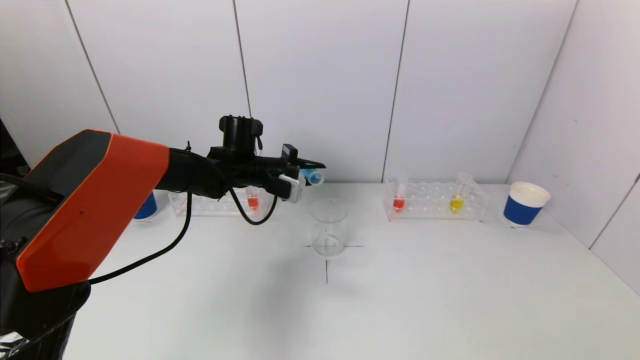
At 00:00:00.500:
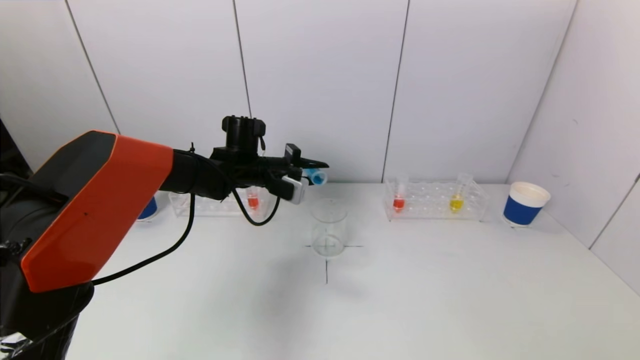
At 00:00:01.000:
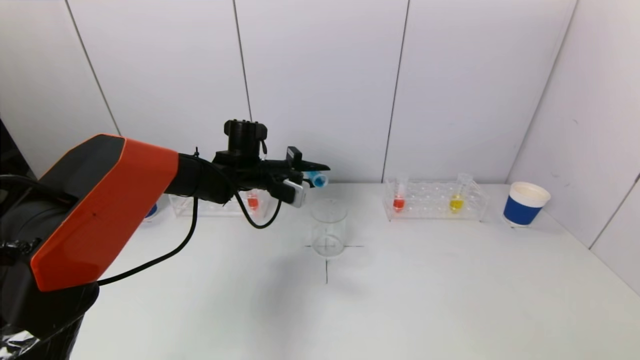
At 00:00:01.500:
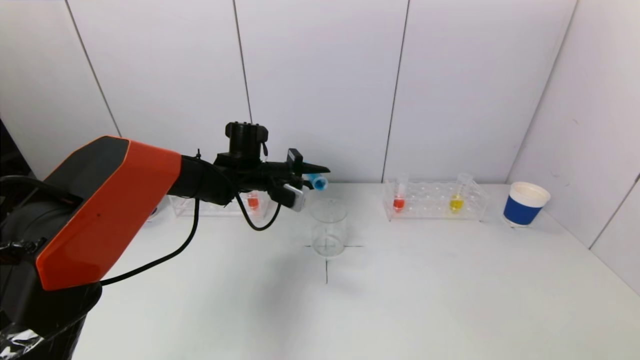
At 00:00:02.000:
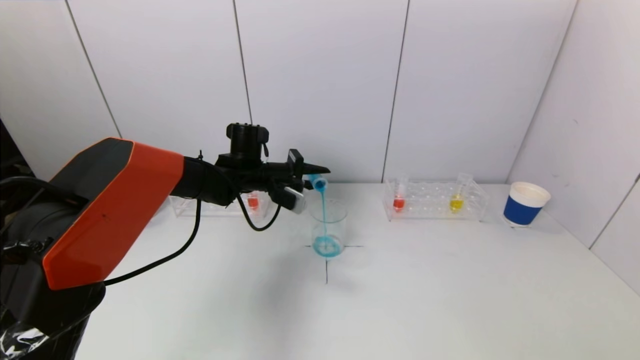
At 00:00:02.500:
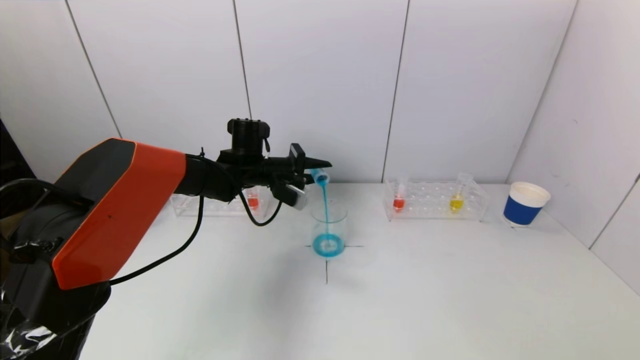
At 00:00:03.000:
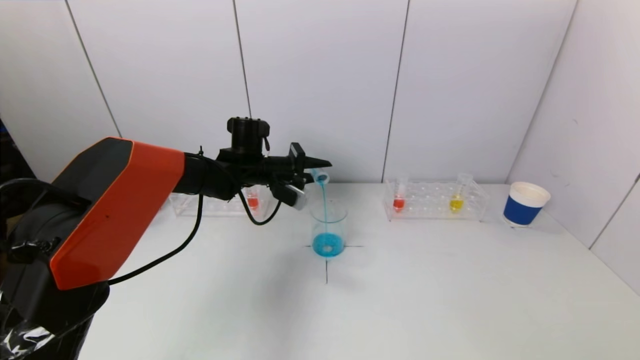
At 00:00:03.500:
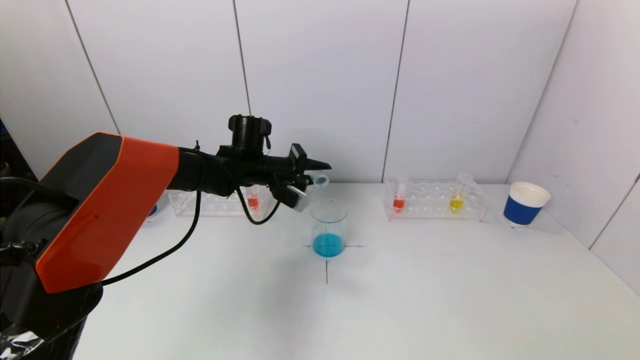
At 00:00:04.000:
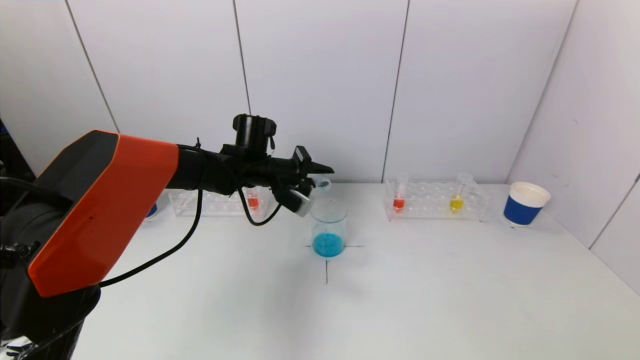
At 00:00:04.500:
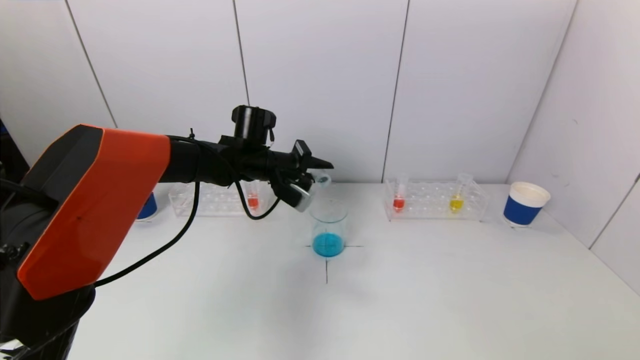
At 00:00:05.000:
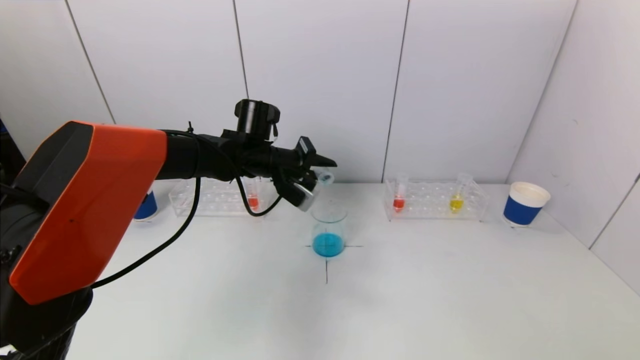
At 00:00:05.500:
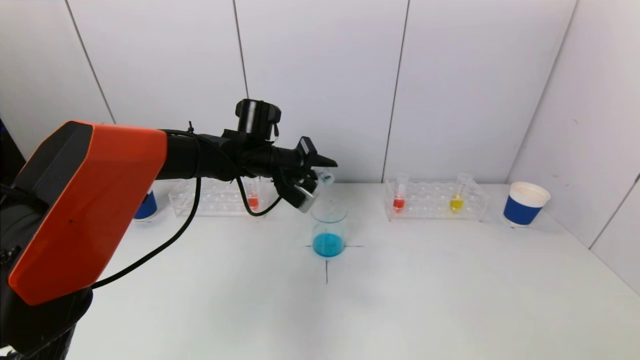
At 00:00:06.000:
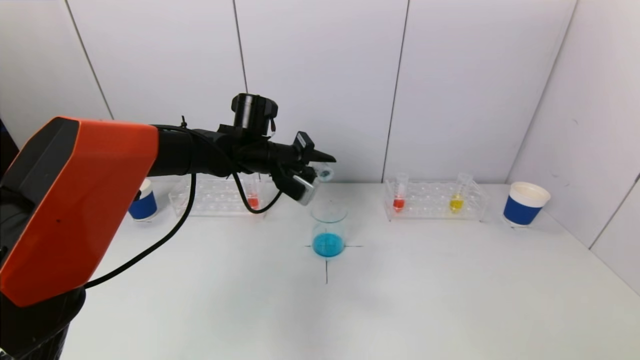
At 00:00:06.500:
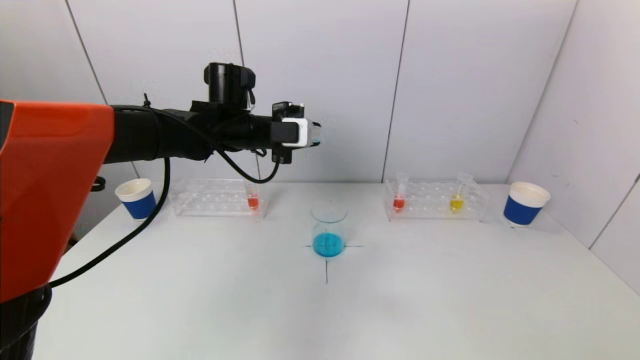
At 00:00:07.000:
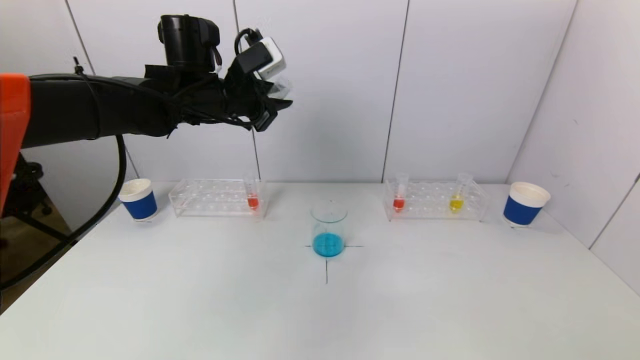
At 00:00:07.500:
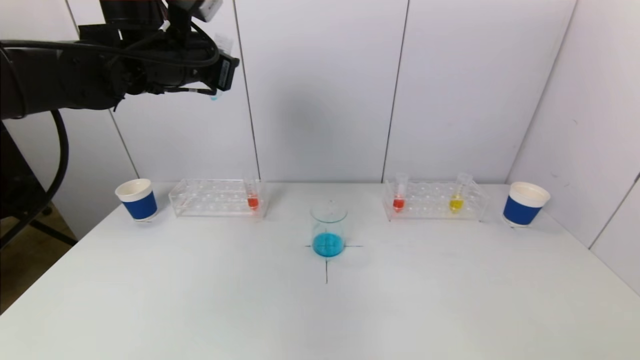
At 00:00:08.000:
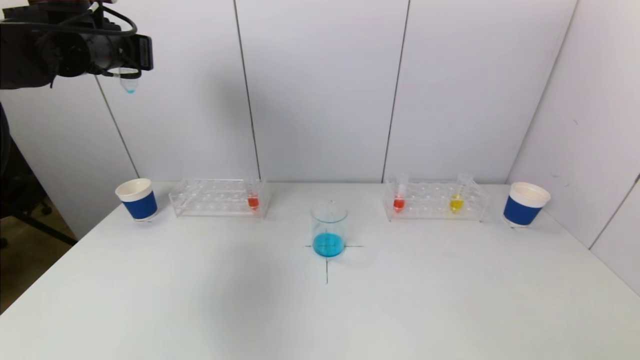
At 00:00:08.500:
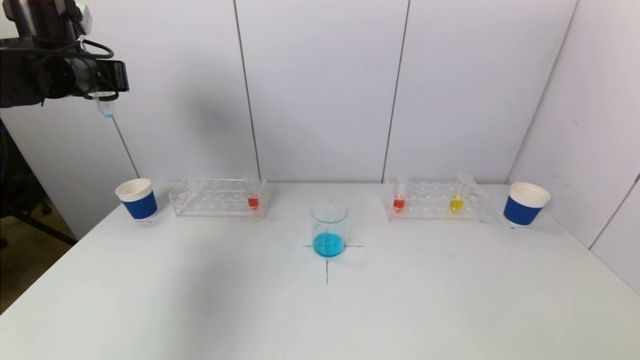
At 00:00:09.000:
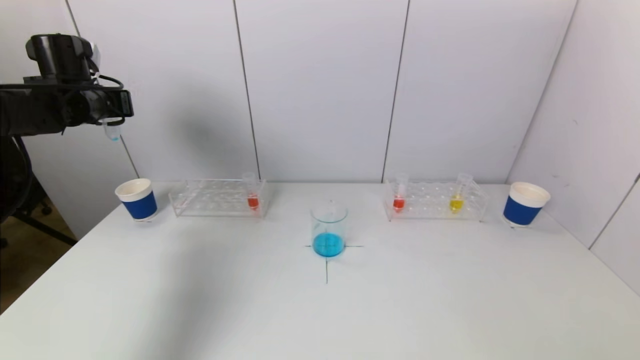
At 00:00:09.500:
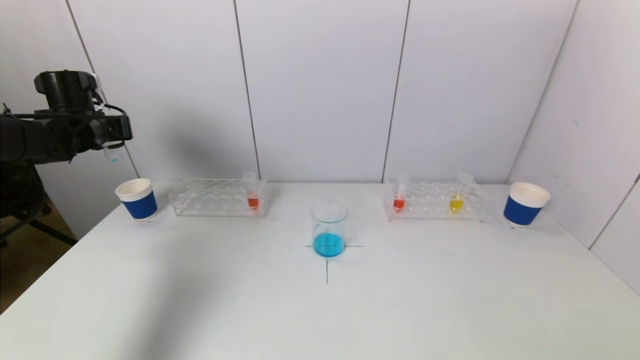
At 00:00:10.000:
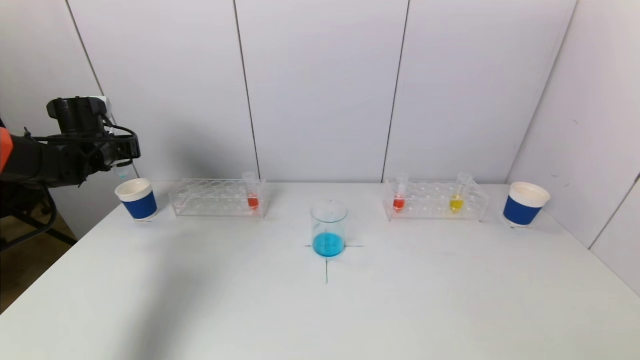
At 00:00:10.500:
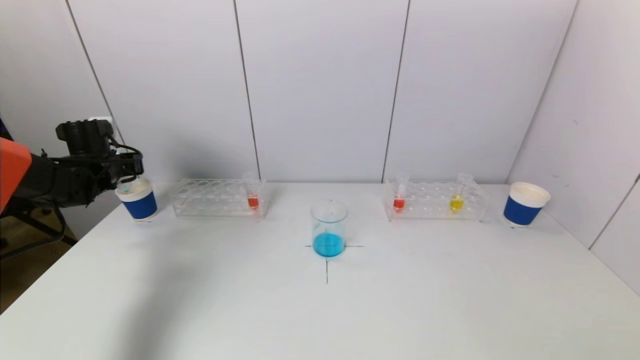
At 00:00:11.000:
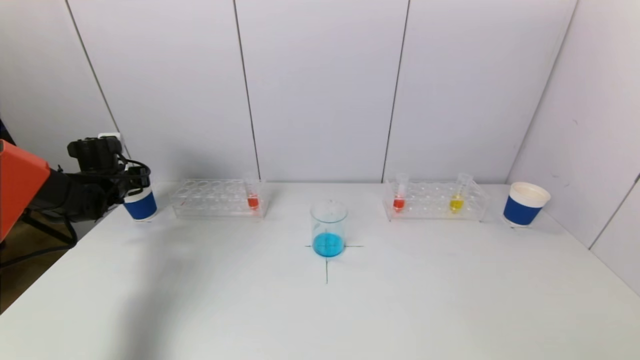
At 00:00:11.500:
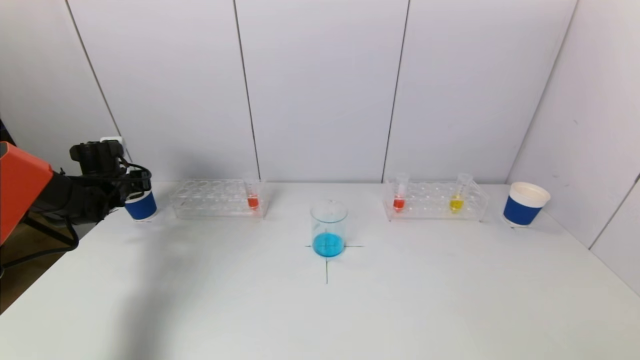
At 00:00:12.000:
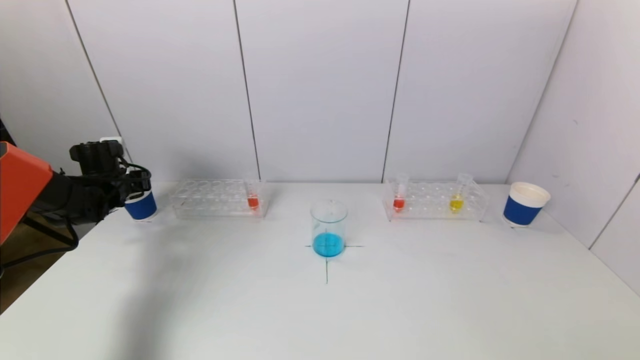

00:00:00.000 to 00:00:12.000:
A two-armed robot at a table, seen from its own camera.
Task of the whole recording: pick up a test tube with pigment on left test tube rack and a test tube with pigment on right test tube rack by grippers and pour them into the beaker.
Step, 00:00:00.000 to 00:00:04.500: Pour the blue reagent into the graduated cylinder with the left gripper.
00:00:00.000 to 00:00:04.000: There are only small adjustments of the grippers.
00:00:04.000 to 00:00:06.000: The grippers move only a little.
00:00:06.000 to 00:00:08.000: The left gripper goes some 25 cm to the left and upward.
00:00:08.000 to 00:00:10.000: The left gripper moves downward and to the left, some 20 cm.
00:00:10.000 to 00:00:12.000: The left gripper goes some 10 cm downward.

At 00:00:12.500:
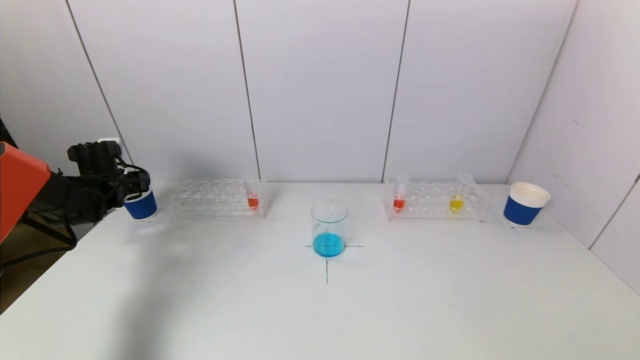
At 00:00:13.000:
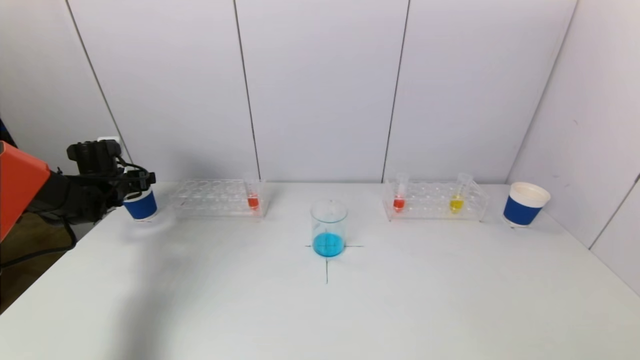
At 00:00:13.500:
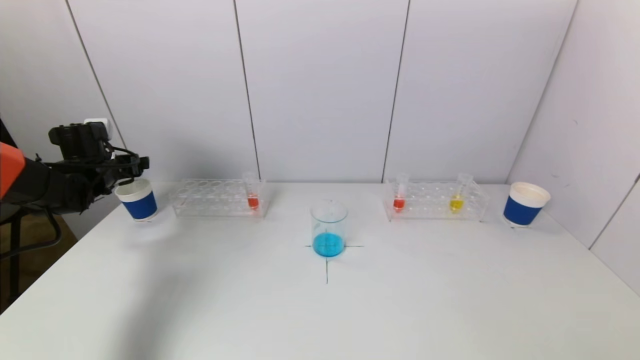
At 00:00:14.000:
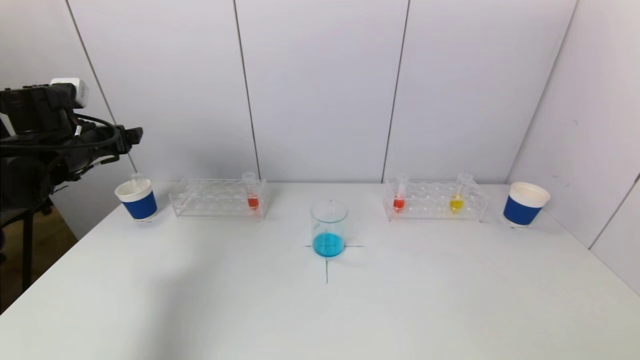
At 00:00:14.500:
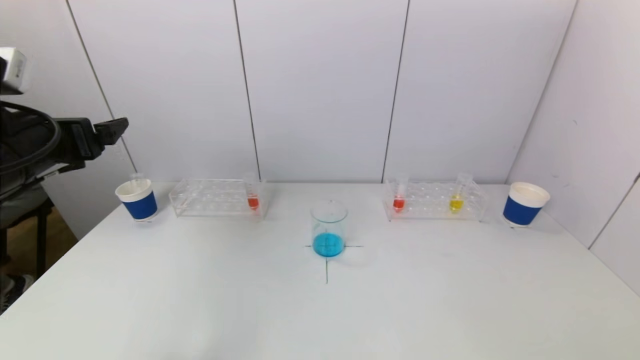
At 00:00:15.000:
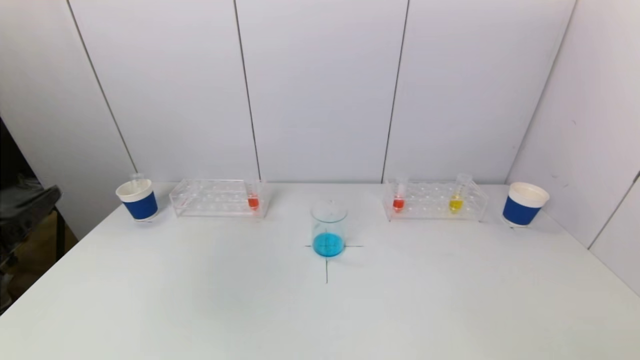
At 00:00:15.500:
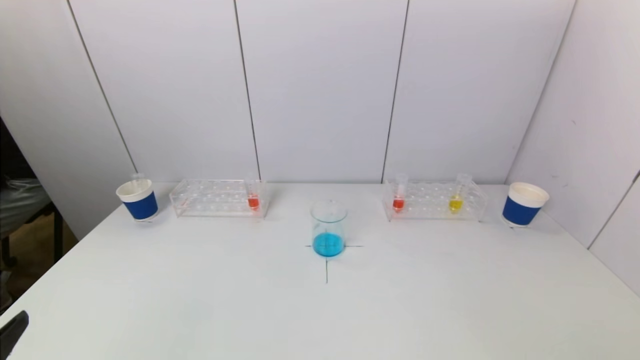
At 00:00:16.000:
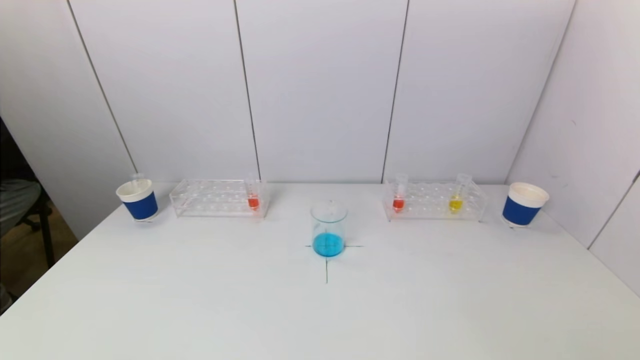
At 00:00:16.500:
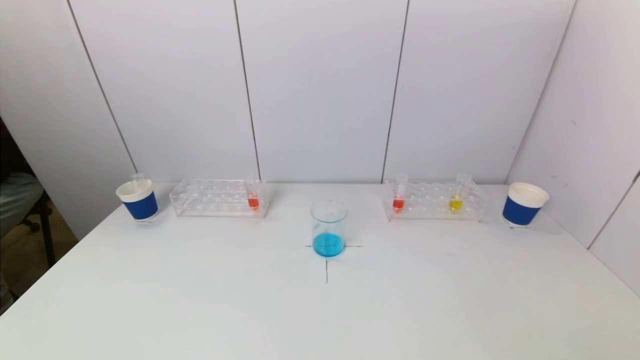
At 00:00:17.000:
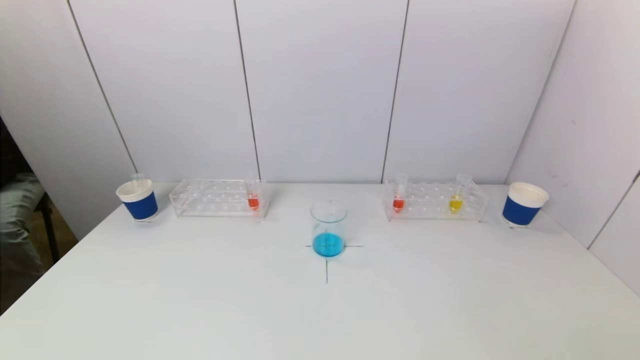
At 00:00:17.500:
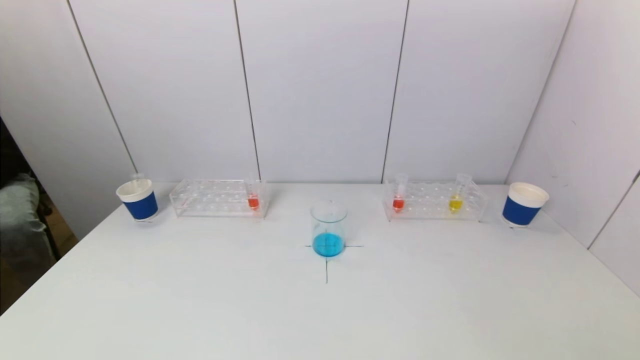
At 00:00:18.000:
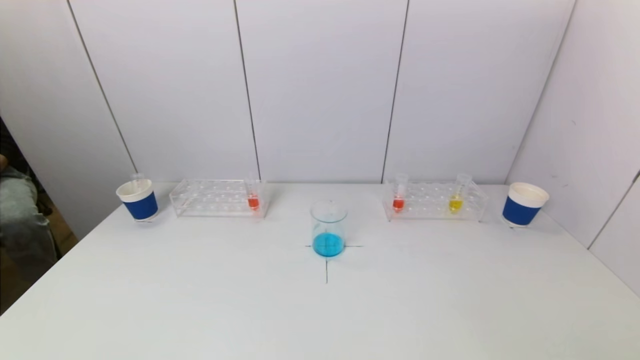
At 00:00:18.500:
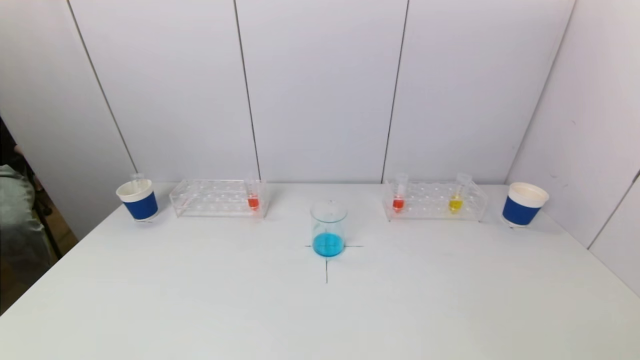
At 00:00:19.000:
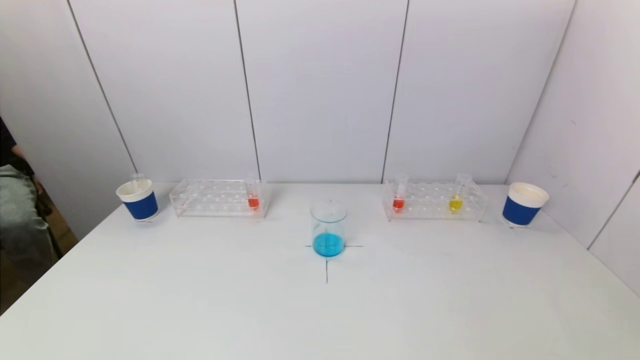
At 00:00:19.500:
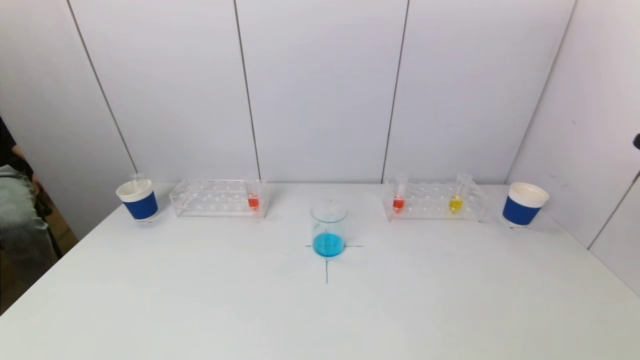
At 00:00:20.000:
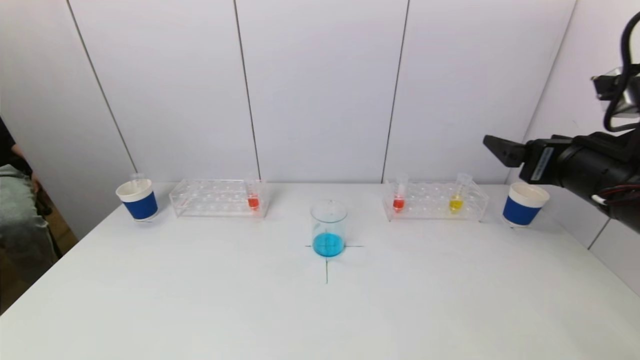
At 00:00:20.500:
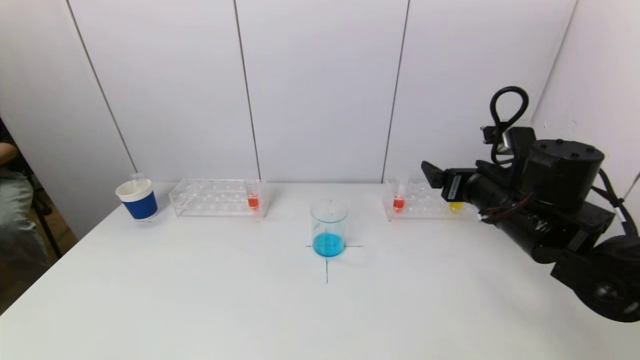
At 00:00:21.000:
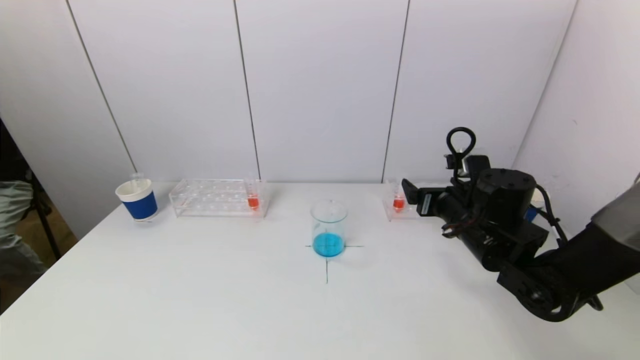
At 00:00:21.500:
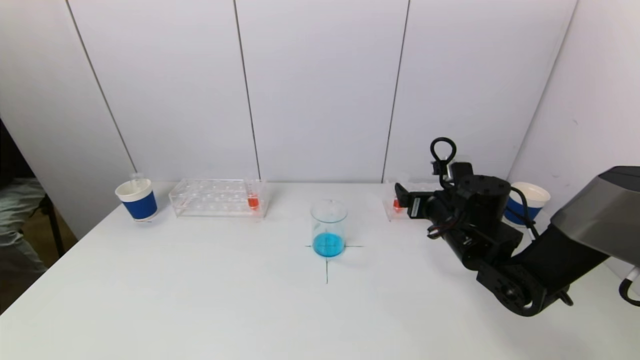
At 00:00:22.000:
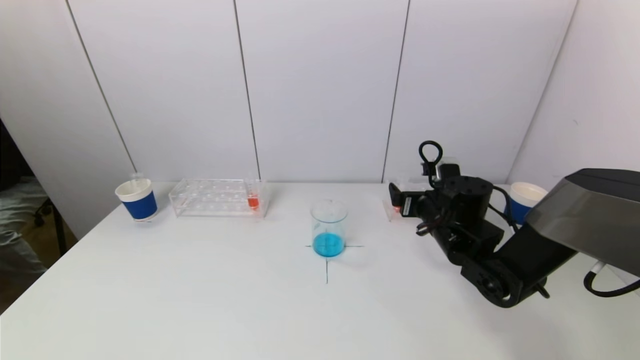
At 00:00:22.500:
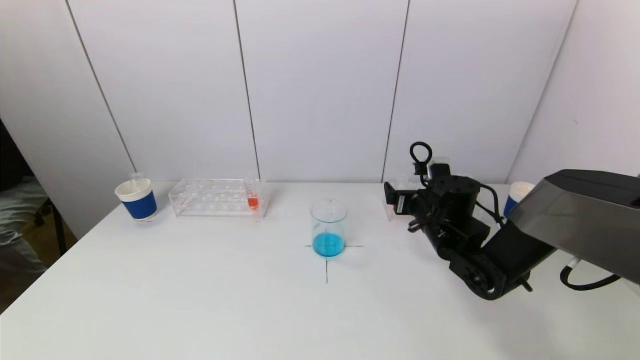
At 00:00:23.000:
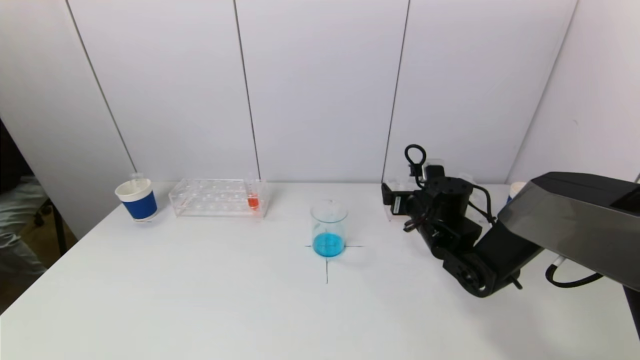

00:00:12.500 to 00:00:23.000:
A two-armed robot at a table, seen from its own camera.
Task of the whole recording: pick up a test tube with pigment on left test tube rack and a test tube with pigment on right test tube rack by grippers and pour them into the beaker.
00:00:12.500 to 00:00:14.500: The left gripper travels backward, upward and to the right by approximately 30 cm.
00:00:14.500 to 00:00:16.500: The left gripper moves backward and downward, some 30 cm.
00:00:19.000 to 00:00:21.000: The right gripper moves forward, downward and to the left, roughly 35 cm.
00:00:21.000 to 00:00:23.000: The right gripper is displaced forward by roughly 5 cm.
